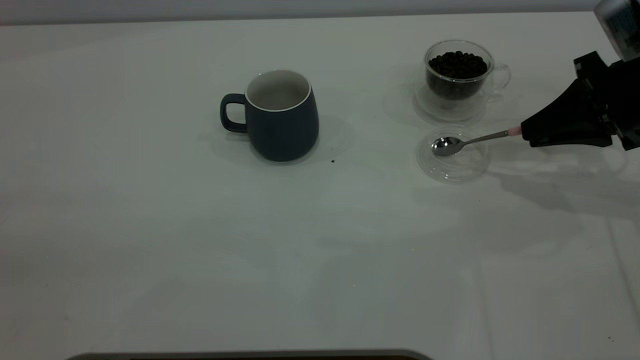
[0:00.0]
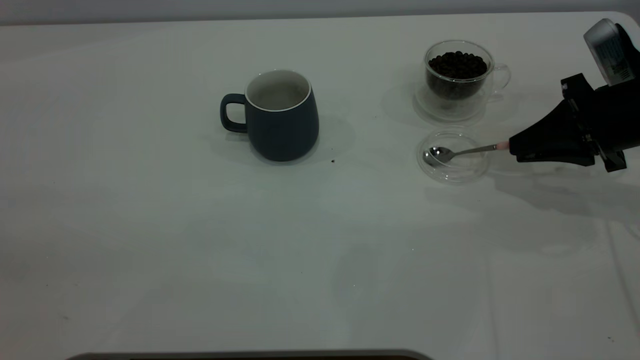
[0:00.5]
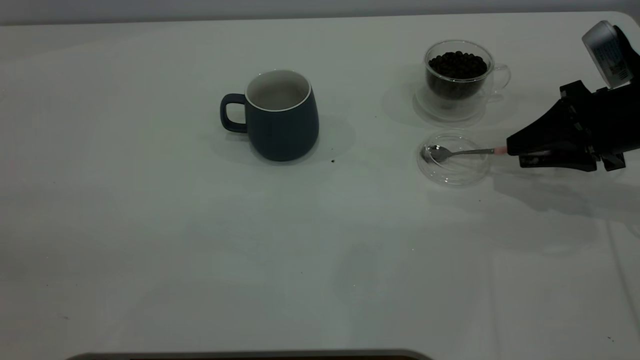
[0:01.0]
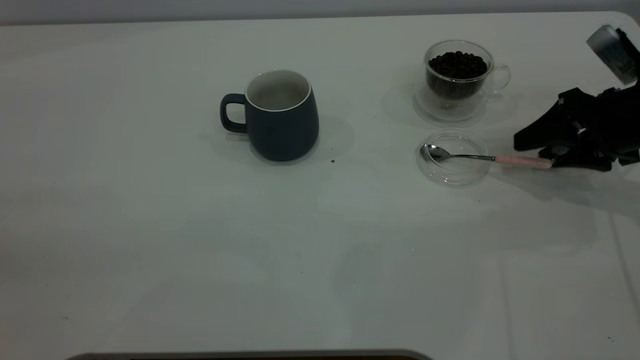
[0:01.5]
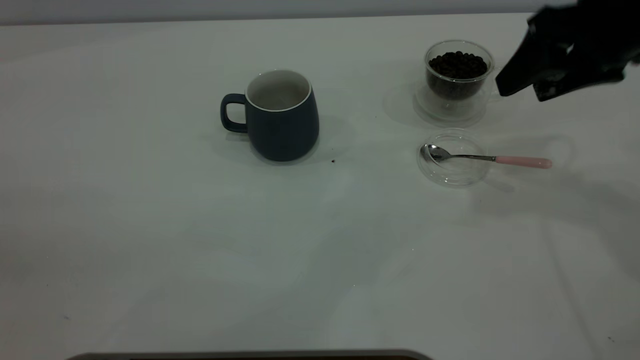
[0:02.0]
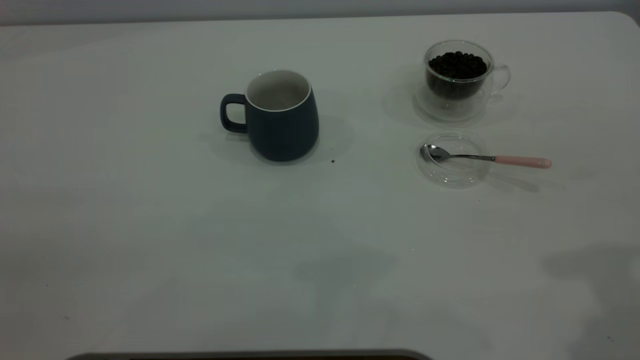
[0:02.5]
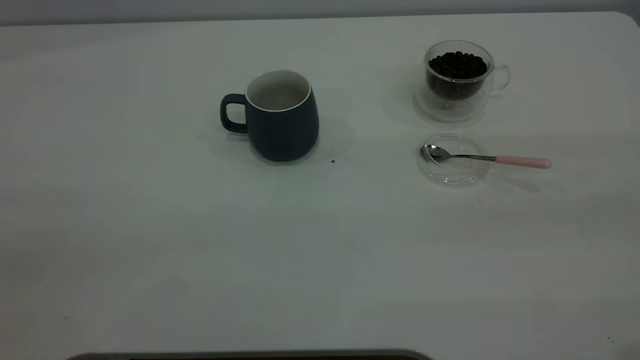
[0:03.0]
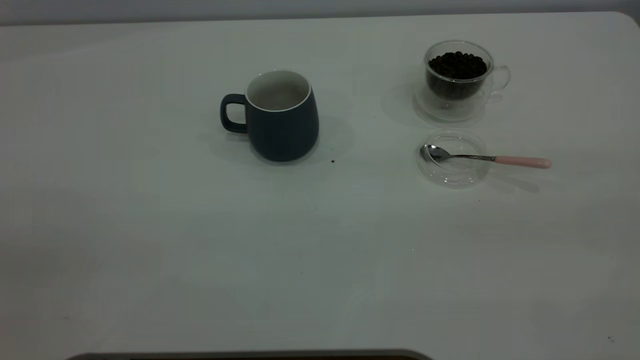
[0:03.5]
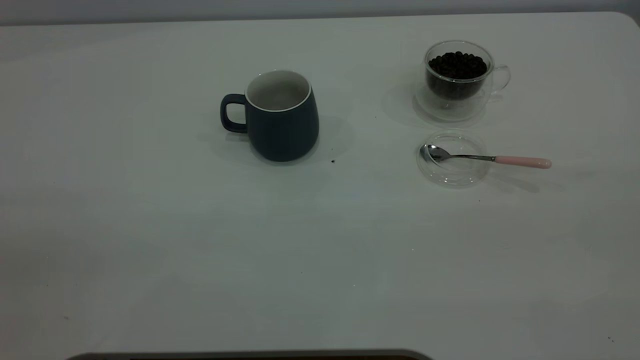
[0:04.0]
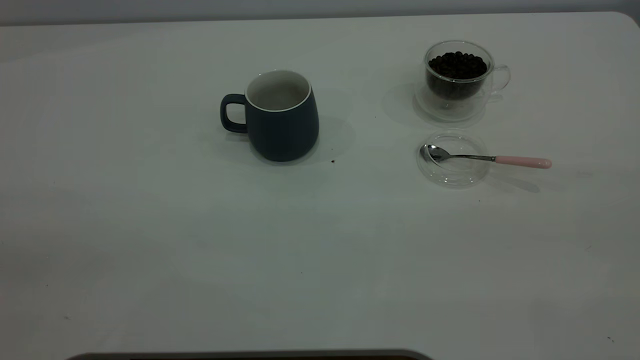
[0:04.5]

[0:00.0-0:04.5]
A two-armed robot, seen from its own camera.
Task of the whole recording: the left gripper place the grey cup in the center of the table, the right gripper take the pink spoon from the cup lid and scoop out the coffee beans from the coffee cup and put them into the grey cup, the right gripper put the spoon back into the cup lid.
Step, 0:00.0 to 0:01.5: Place the spoon back in its original place.
0:00.0 to 0:02.0: The right gripper moves upward and to the left, roughly 15 cm, and opens its fingers.
0:02.0 to 0:04.5: The right gripper is displaced backward and upward by roughly 35 cm.

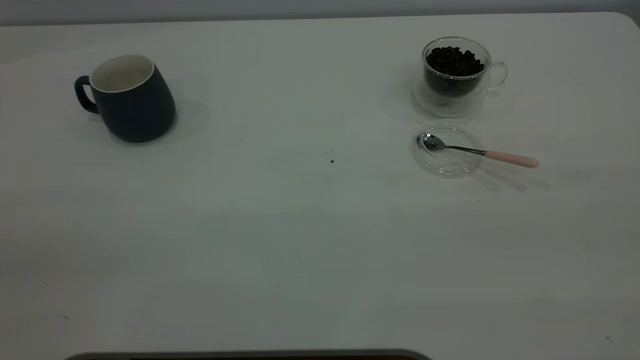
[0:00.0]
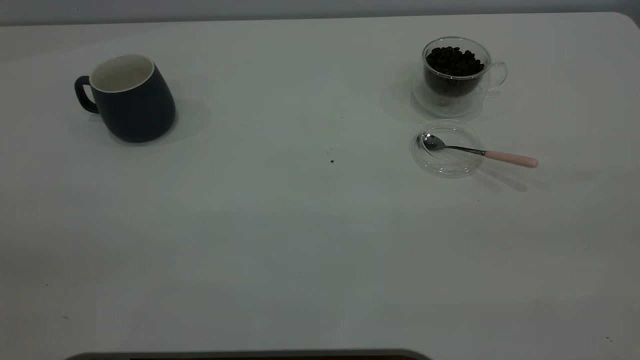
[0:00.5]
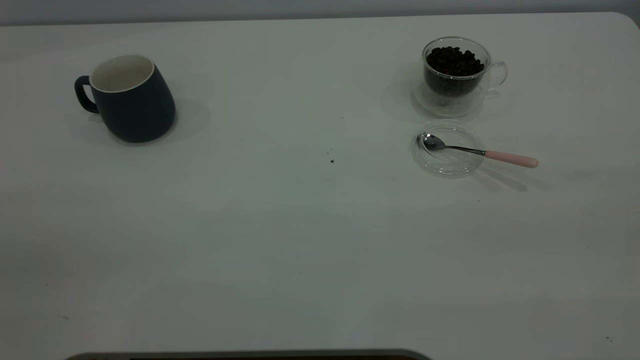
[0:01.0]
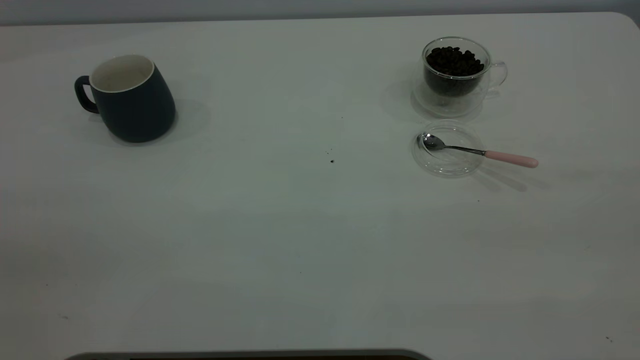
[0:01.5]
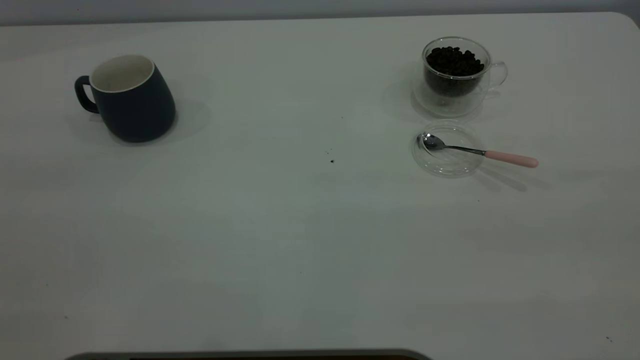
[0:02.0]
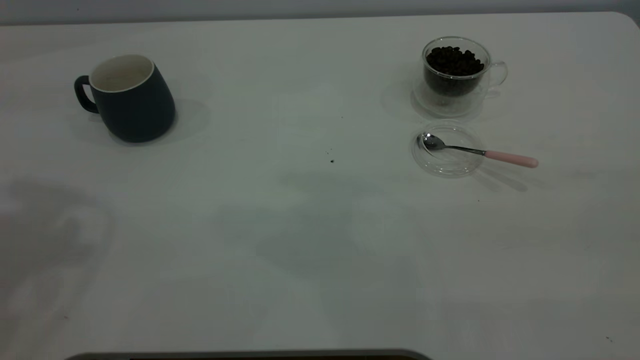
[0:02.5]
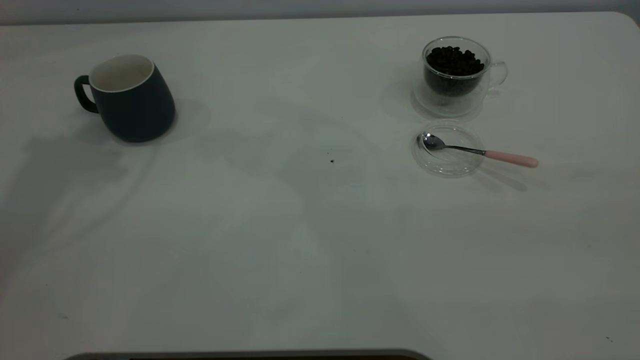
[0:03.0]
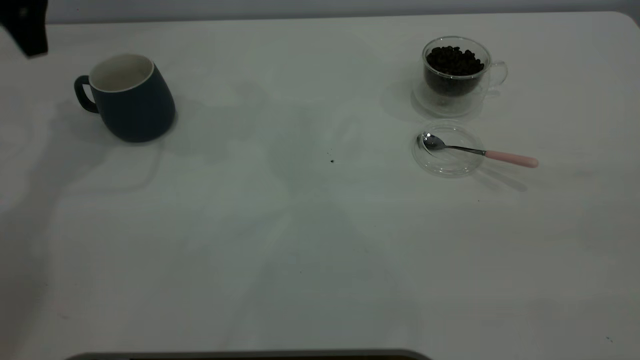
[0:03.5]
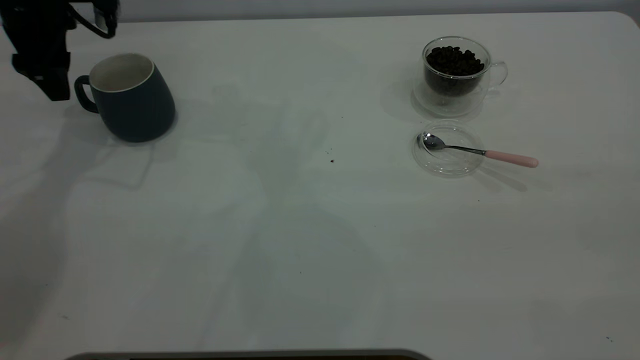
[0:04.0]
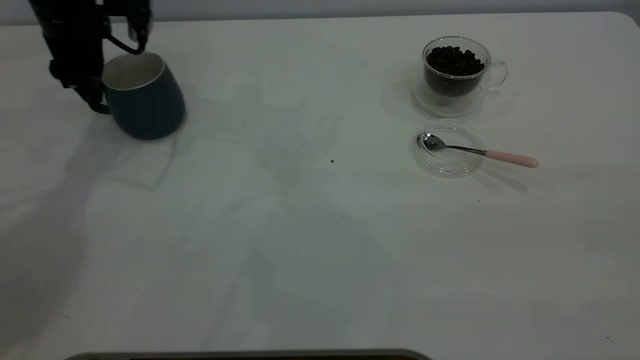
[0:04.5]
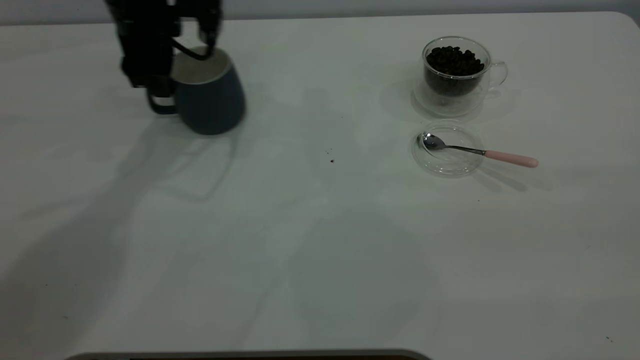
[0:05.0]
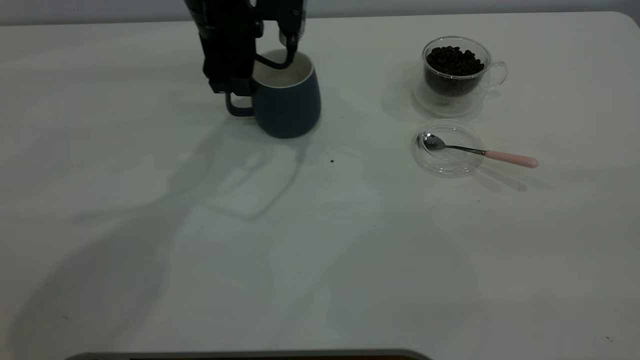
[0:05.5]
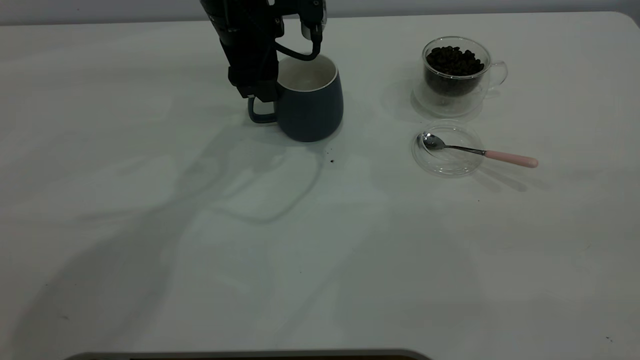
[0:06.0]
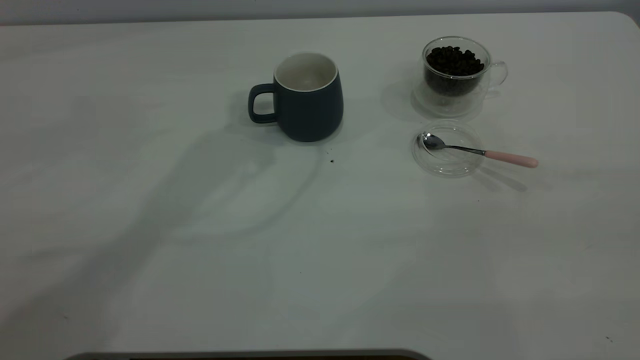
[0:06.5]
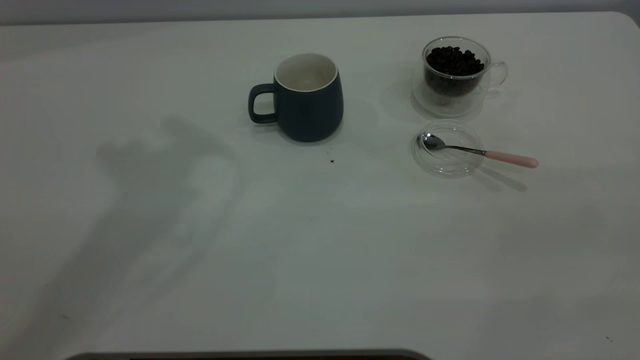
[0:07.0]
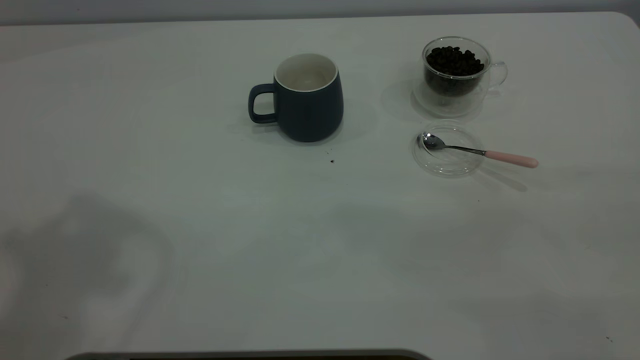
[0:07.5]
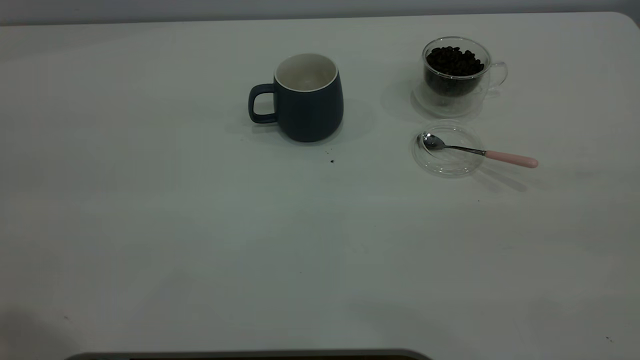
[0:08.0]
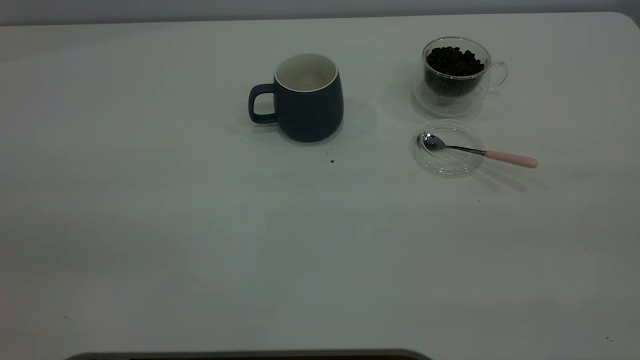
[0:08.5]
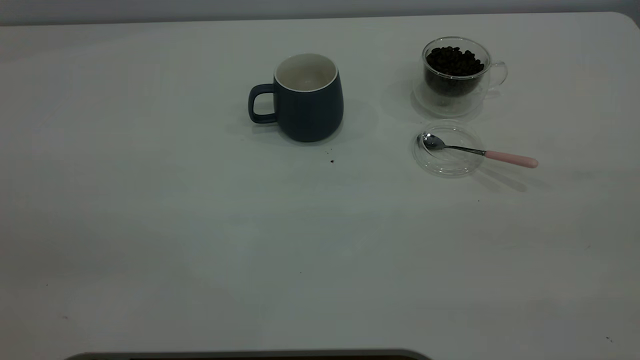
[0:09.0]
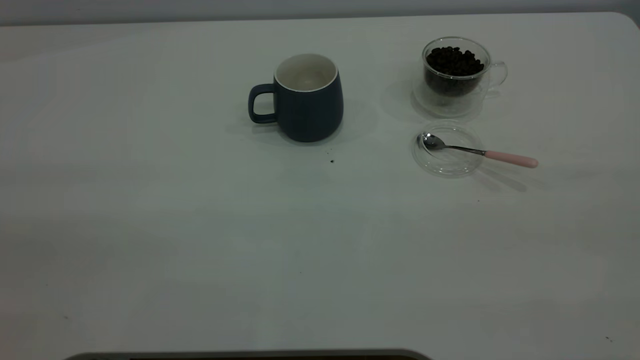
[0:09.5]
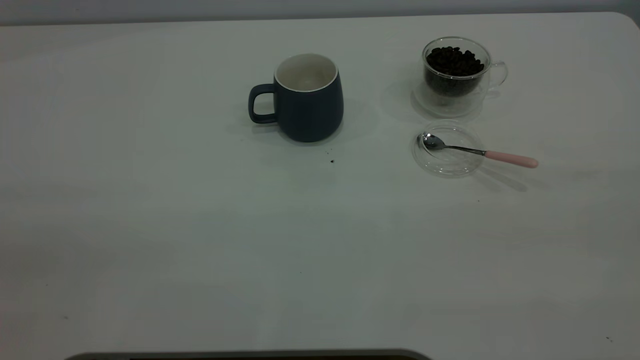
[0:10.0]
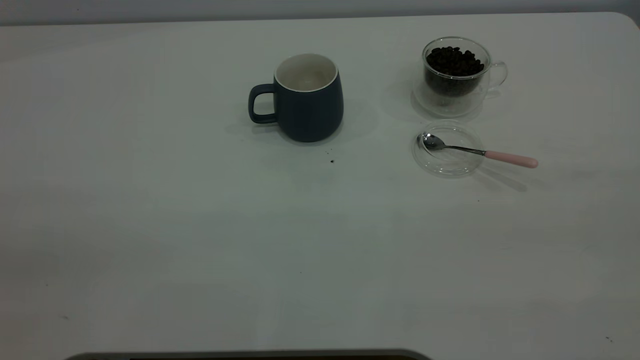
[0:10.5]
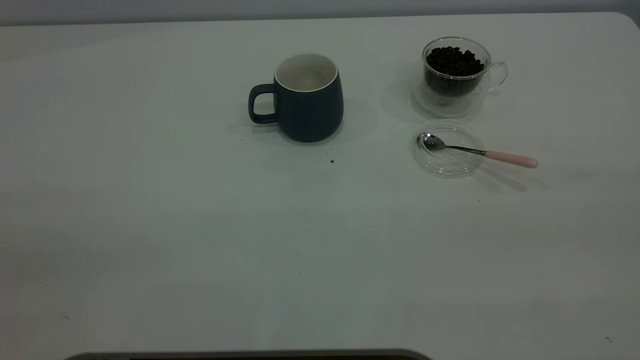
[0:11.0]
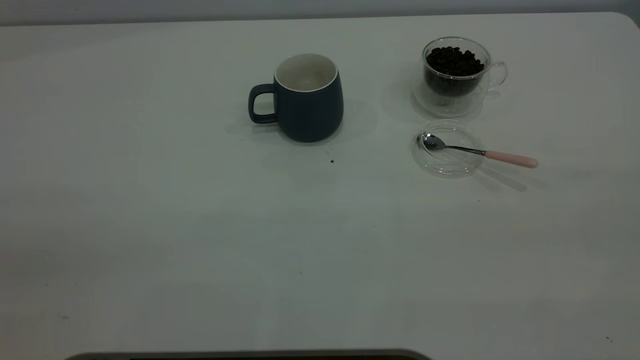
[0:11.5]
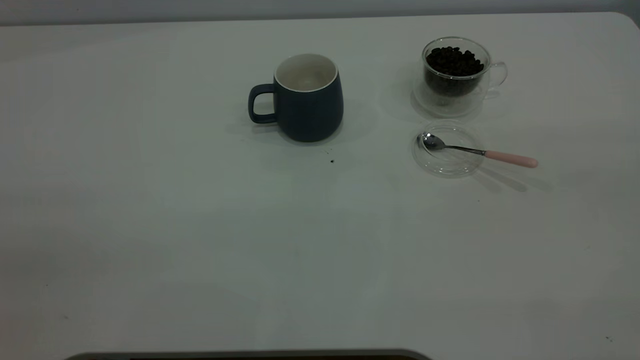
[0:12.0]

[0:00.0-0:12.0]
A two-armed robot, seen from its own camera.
Task of the whole recording: the left gripper place the grey cup in the center of the table, the right gripper take the pink spoon from the cup lid and scoop out the coffee beans from the coffee cup and put them into the grey cup, the right gripper put the spoon back into the cup lid.
Step, 0:00.0 to 0:06.0: Move the cup to the center of view.
0:02.0 to 0:04.0: The left gripper heads forward and downward, covering approximately 50 cm.
0:04.0 to 0:06.0: The left gripper travels to the right by roughly 20 cm.
0:06.0 to 0:08.0: The left gripper is displaced backward, upward and to the left by approximately 50 cm.

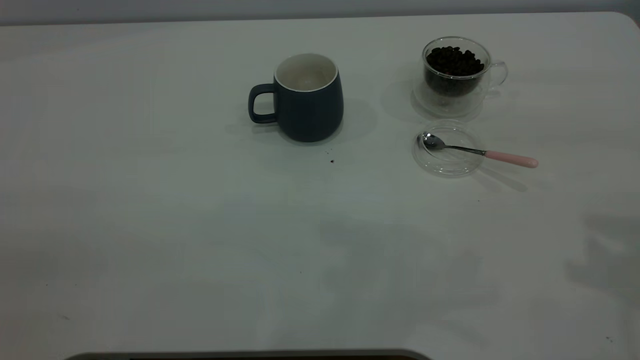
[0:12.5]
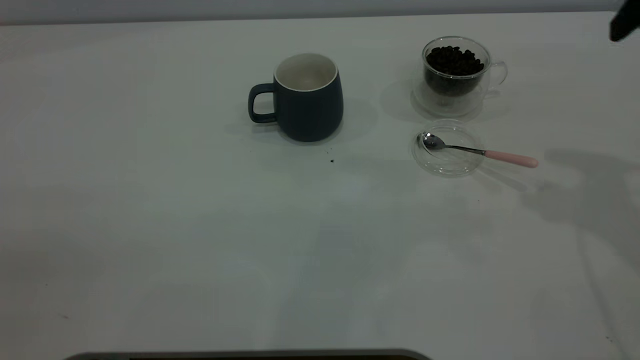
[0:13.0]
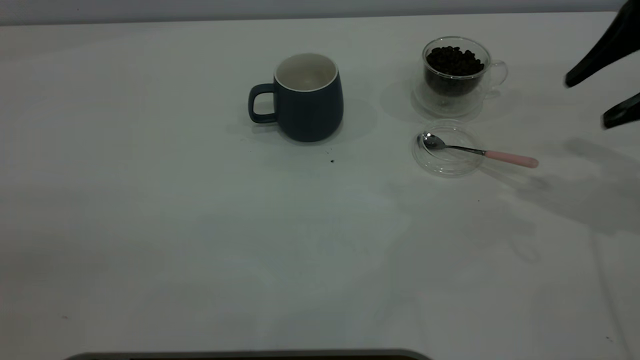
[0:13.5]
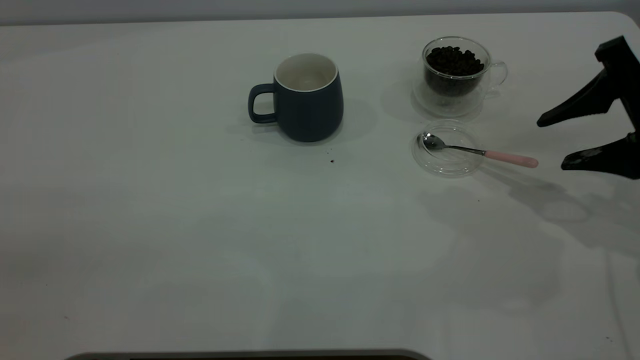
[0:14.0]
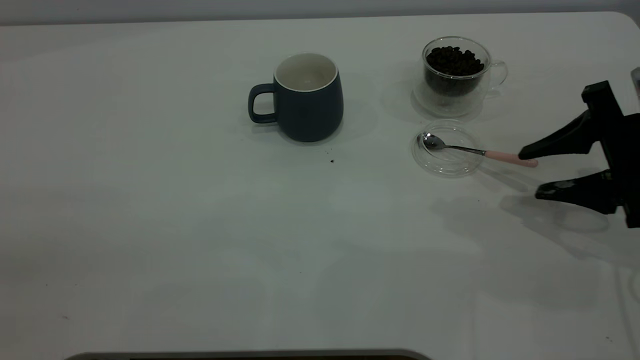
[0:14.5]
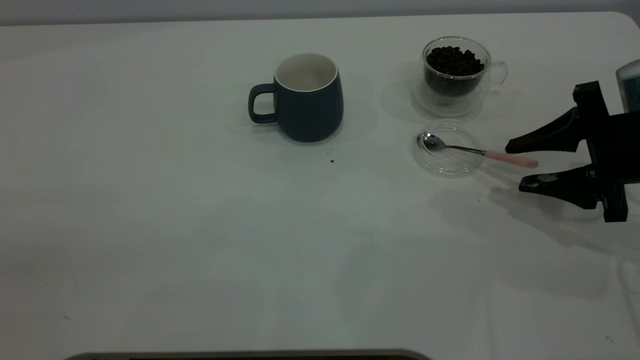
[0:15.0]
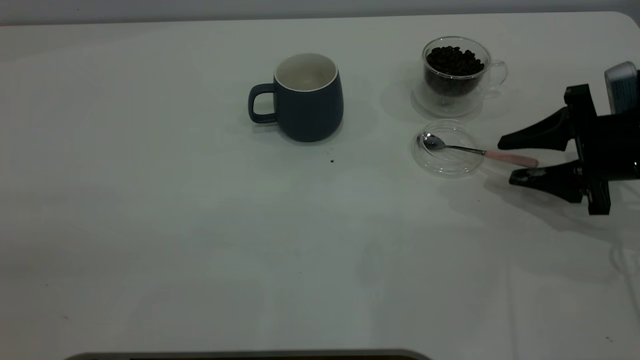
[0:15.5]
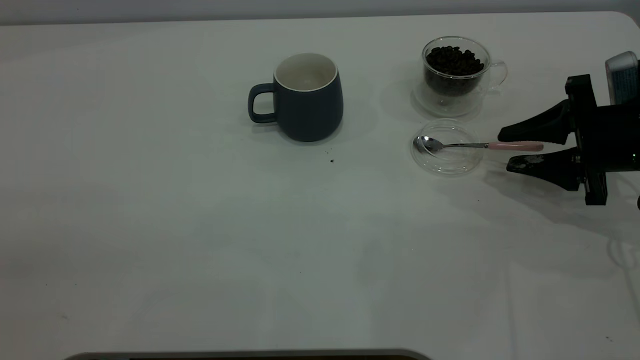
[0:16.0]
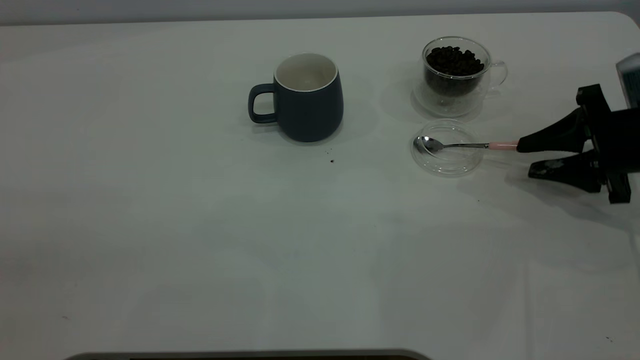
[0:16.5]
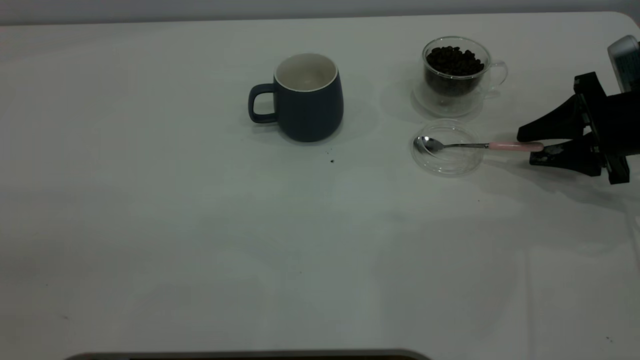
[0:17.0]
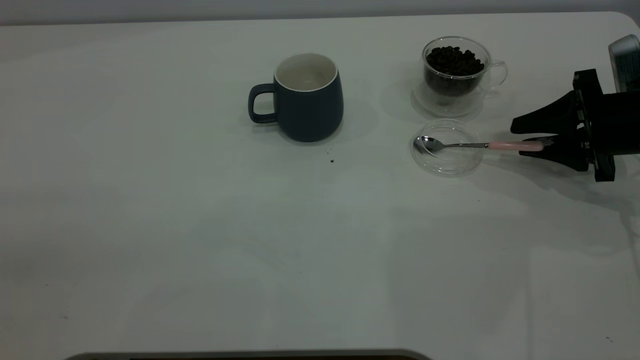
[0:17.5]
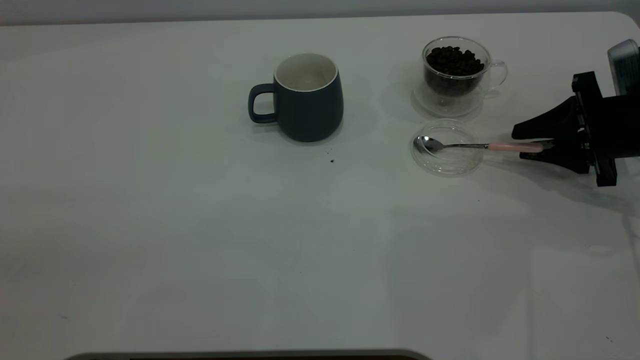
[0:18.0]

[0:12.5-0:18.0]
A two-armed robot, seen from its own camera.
Task of the whole recording: the left gripper place the grey cup in the center of the table, the right gripper take the pink spoon from the cup lid and scoop out the coffee beans from the coffee cup and put them into the grey cup, the right gripper put the spoon back into the cup lid.
0:12.5 to 0:14.5: The right gripper is displaced downward by some 25 cm.
0:14.5 to 0:16.0: The grippers move only a little.
0:16.0 to 0:18.0: There are only small adjustments of the grippers.
